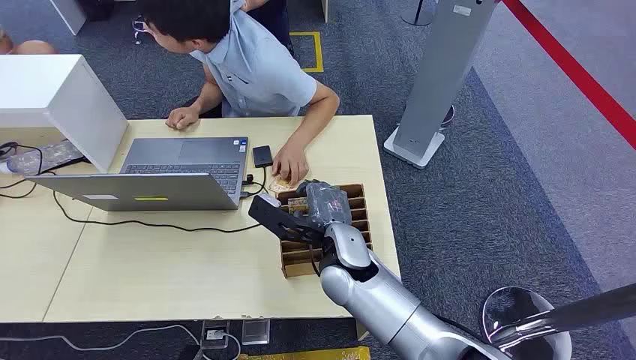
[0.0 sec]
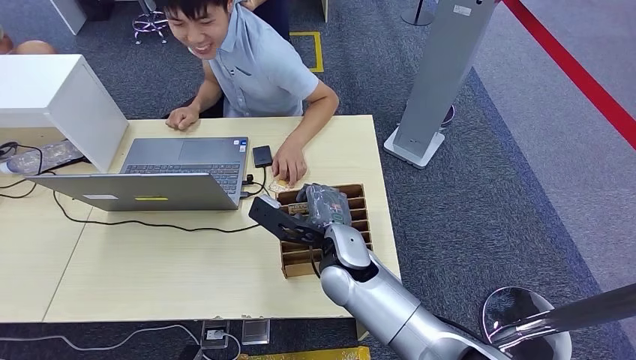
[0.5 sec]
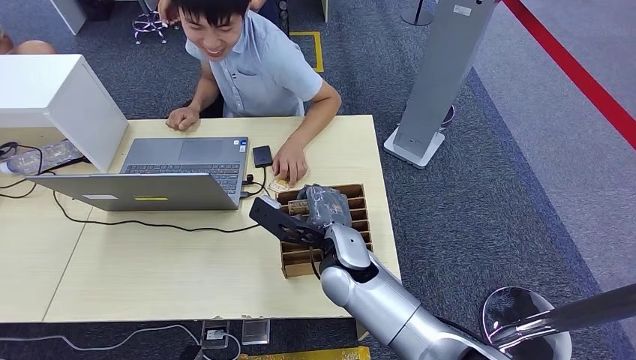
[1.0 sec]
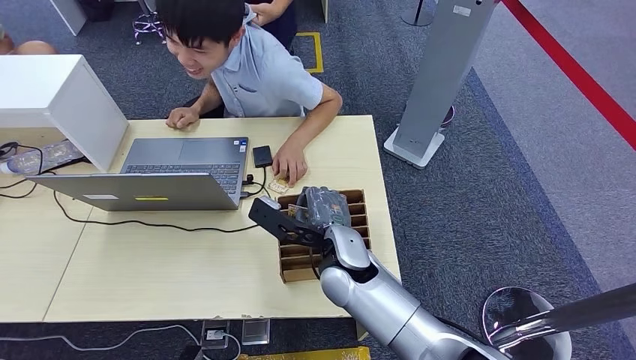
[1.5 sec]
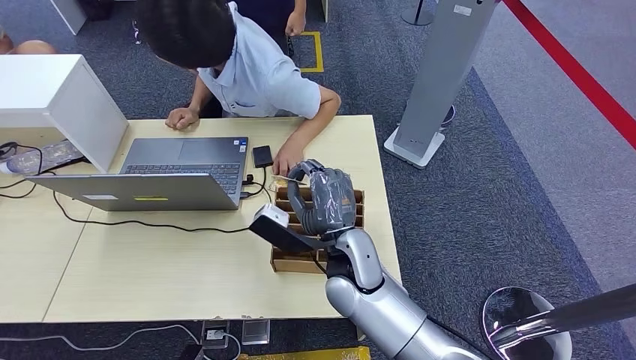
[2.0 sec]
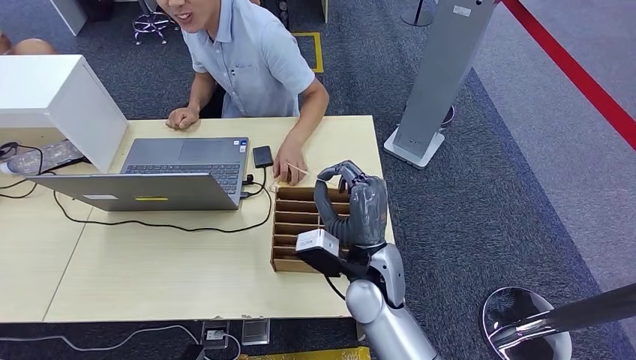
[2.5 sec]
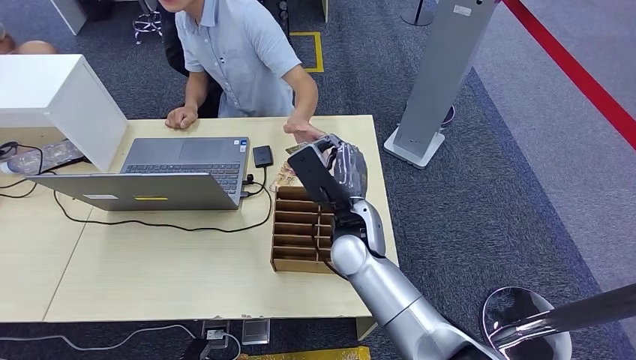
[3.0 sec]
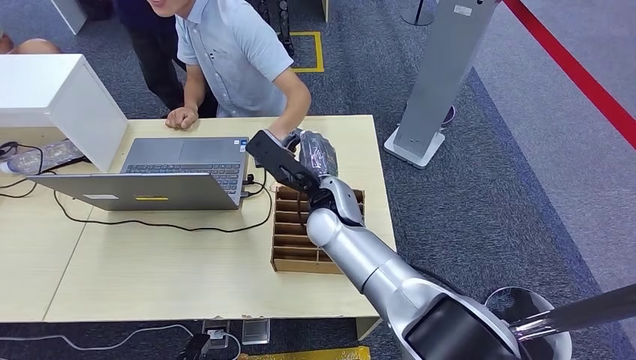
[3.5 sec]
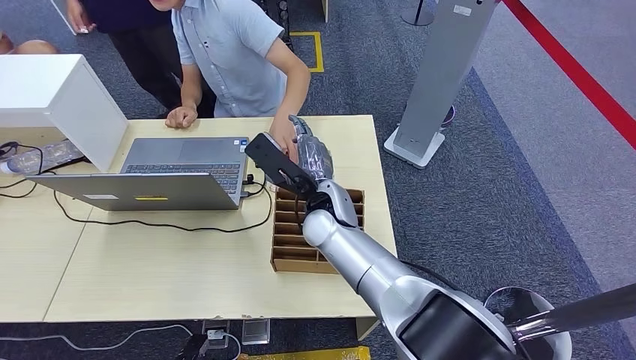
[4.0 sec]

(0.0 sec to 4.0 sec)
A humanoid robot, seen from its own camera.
Step, 0.0 sec - 2.0 sec: Pick up the room card from the card holder.
Step, 3.0 sec - 4.0 sec: Hand the room card to the target.
2.0 sec - 4.0 sec: The right hand heads forward, covering approximately 10 cm.
